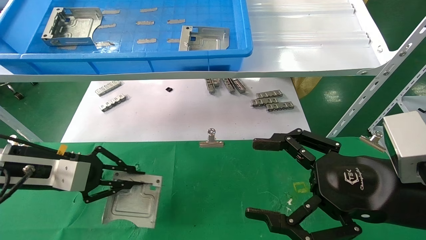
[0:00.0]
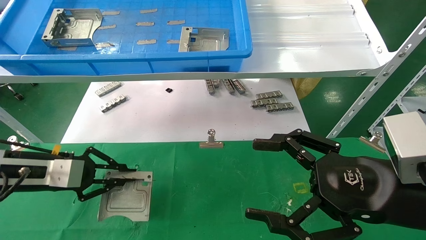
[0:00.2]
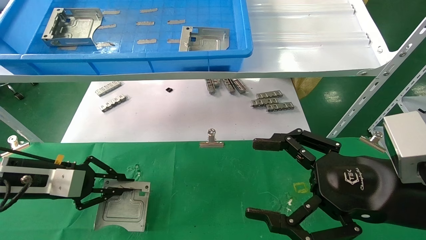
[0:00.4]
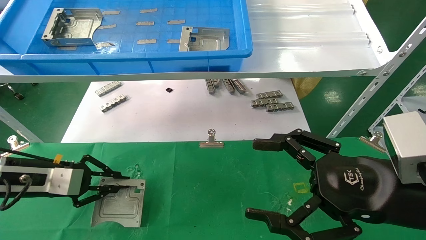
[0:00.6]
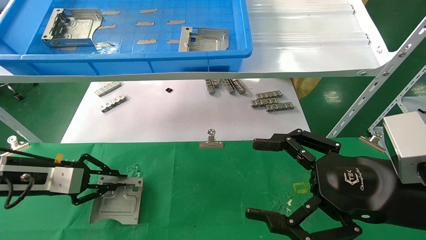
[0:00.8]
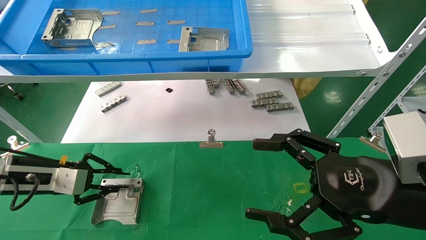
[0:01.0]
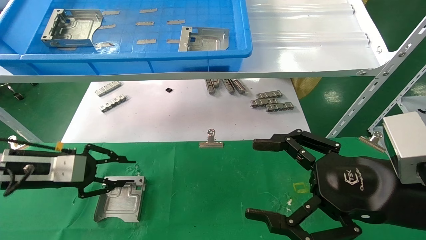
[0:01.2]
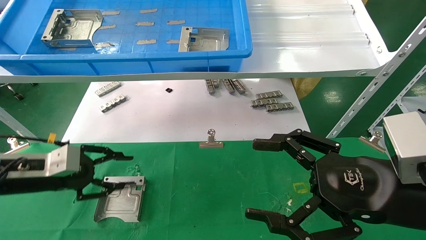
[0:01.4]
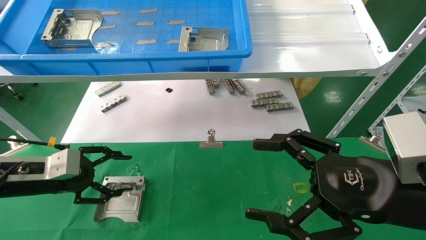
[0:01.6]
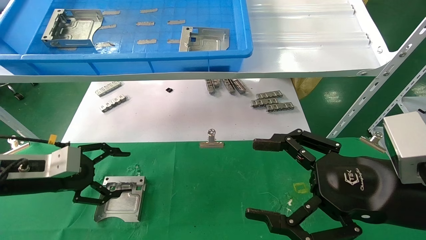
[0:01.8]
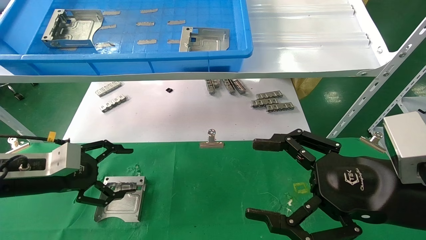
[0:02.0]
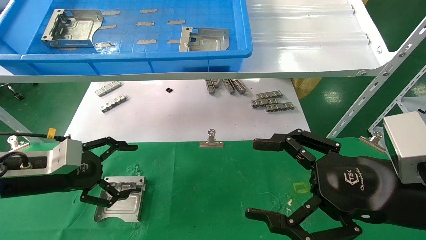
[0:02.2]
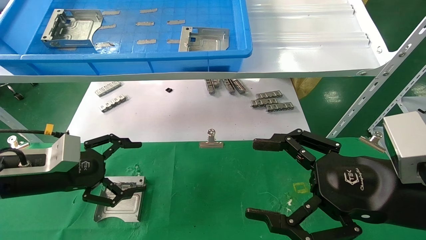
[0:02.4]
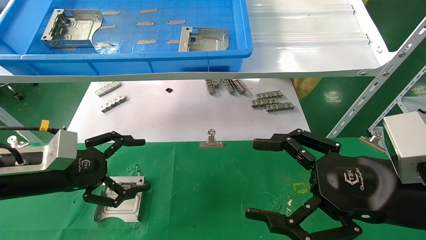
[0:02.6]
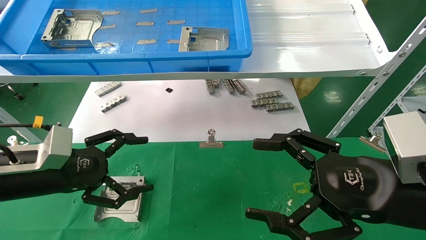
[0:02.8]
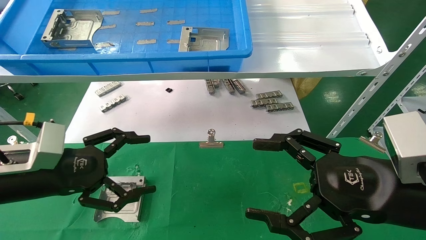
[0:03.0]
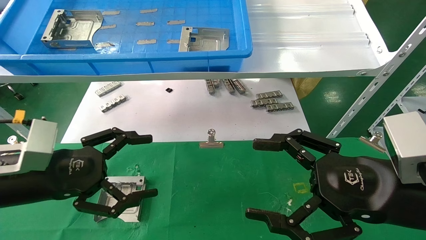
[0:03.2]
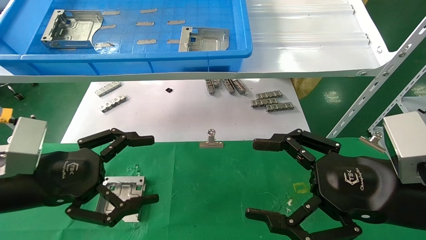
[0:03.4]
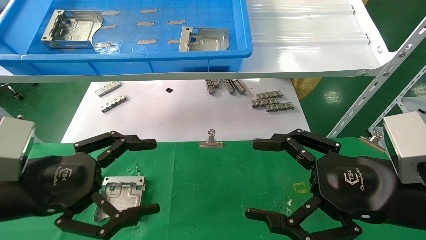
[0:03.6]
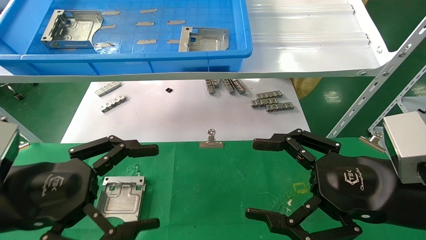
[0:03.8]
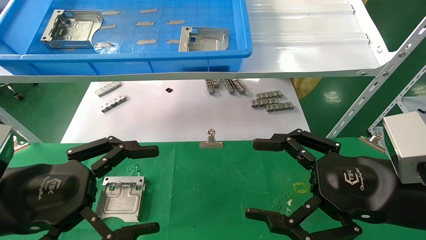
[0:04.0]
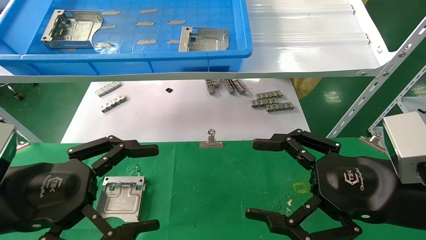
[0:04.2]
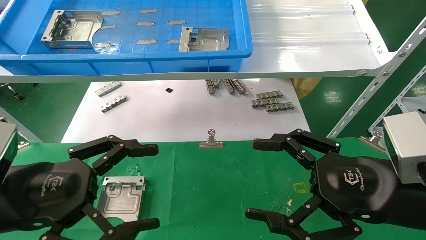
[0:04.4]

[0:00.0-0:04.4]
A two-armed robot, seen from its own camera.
Task of the whole recording: use the mechanical arm to pick up the parts and place them on the table.
0:00.0 to 0:01.4: The left gripper moves roughly 5 cm.
0:01.4 to 0:03.0: The left gripper travels backward and to the right by approximately 10 cm, and opens up.
0:03.0 to 0:04.4: The left gripper shifts about 10 cm backward.
